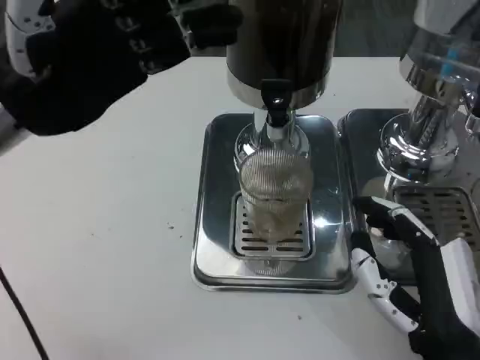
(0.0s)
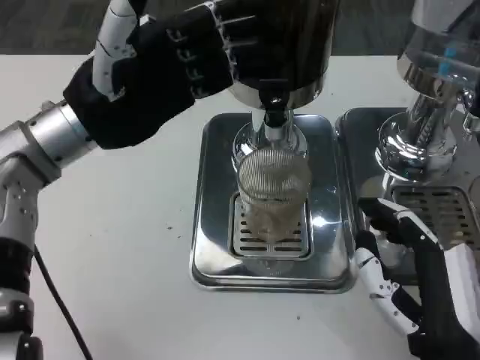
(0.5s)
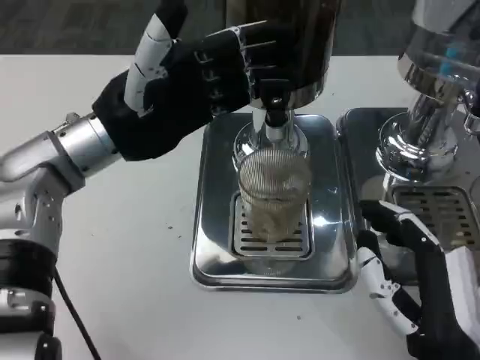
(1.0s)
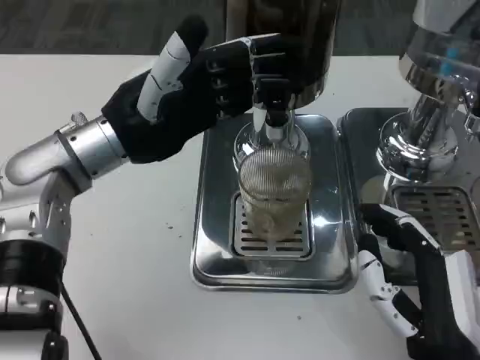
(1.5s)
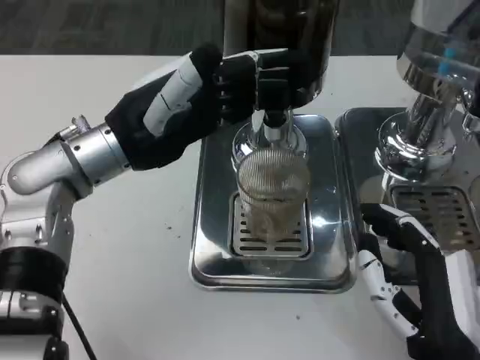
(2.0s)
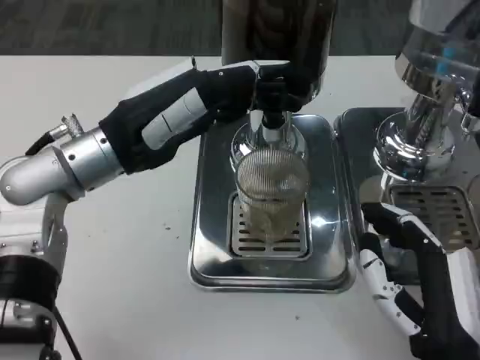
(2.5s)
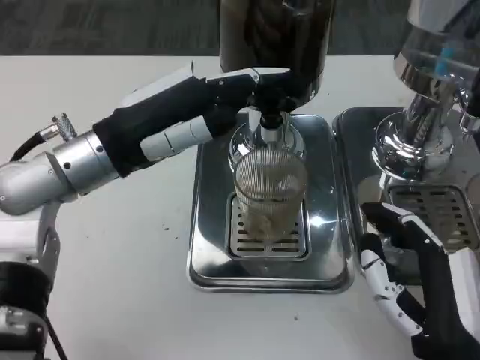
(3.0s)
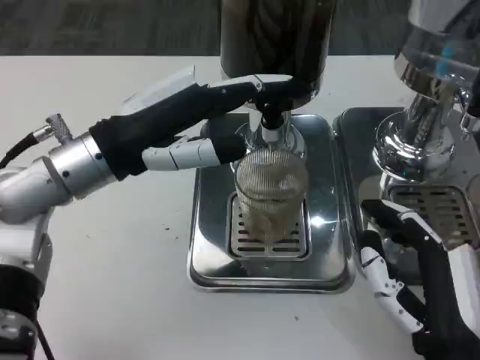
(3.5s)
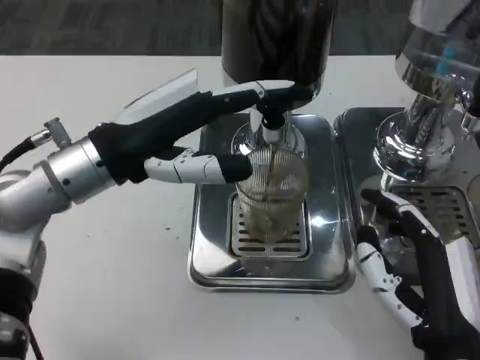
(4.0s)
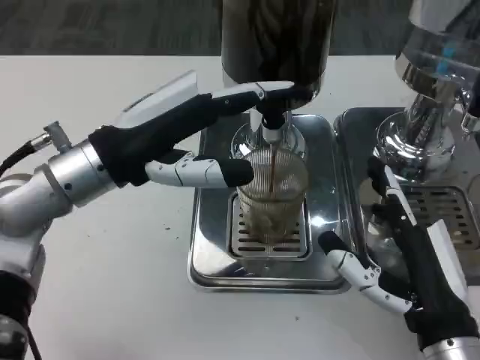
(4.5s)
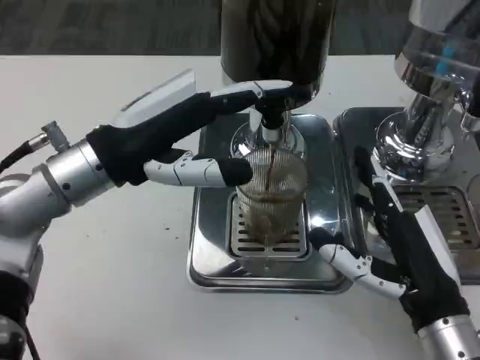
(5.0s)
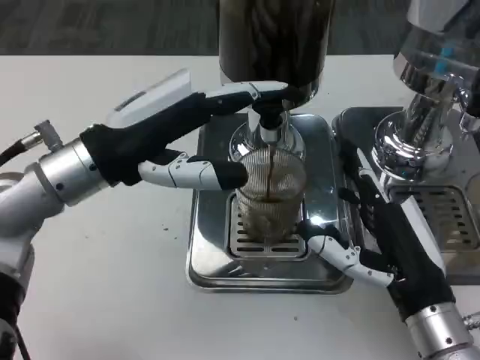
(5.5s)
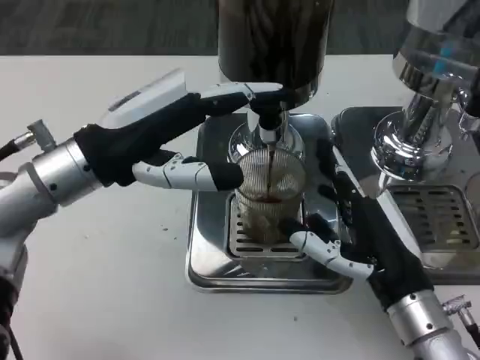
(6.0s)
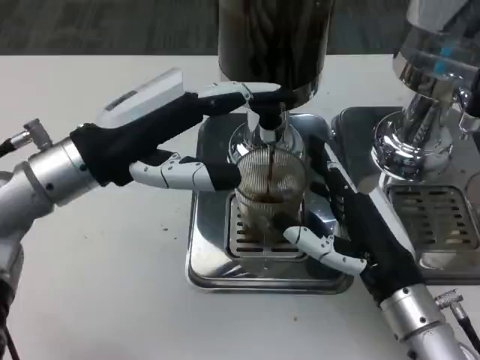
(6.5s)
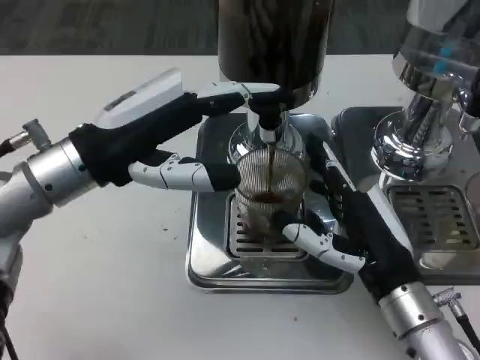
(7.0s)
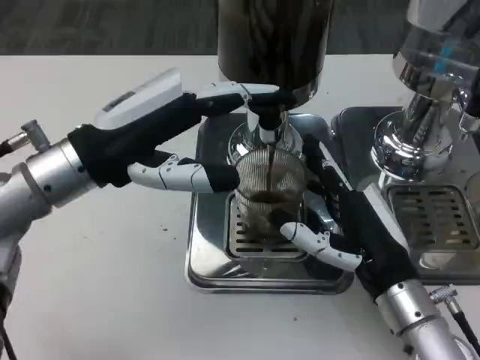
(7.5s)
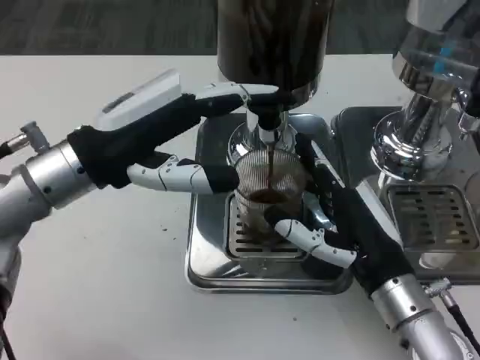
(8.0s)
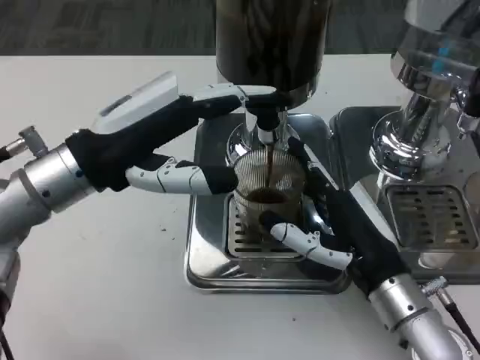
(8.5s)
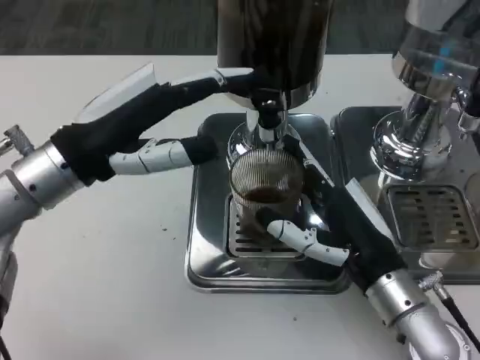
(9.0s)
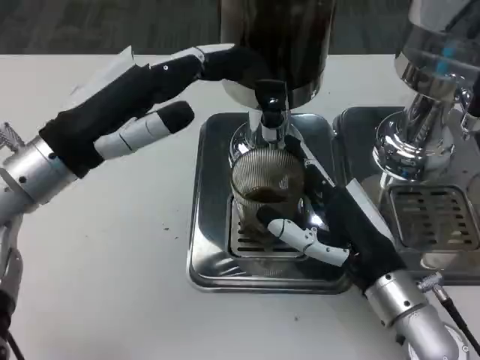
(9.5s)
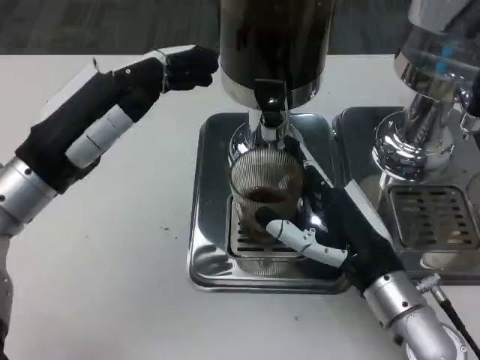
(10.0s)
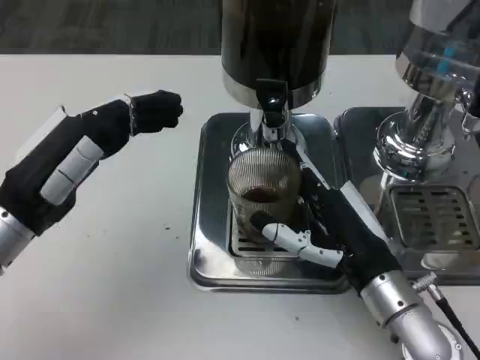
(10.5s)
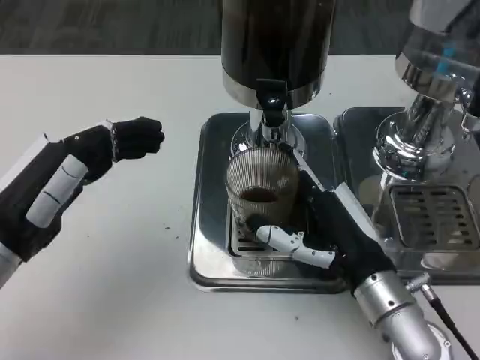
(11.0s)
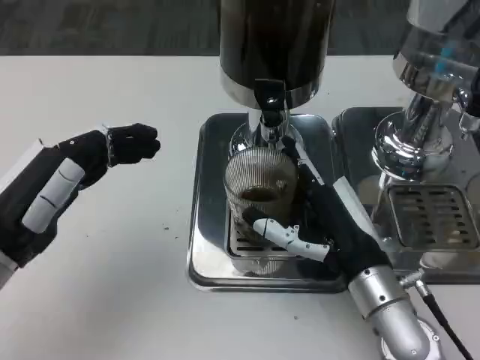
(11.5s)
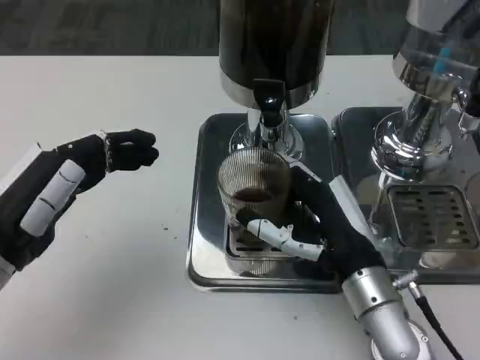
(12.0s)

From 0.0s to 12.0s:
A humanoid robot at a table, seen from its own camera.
Task of the whole recording: Grasp the cup under the faucet to collect the drink, then remove the cup.
From 0.0s to 2.0s: The left hand moves to the right and downward, roughly 10 cm.
From 4.0s to 6.0s: The right hand goes about 5 cm forward.
From 6.0s to 8.0s: The hands make only small movements.
From 10.0s to 12.0s: The left hand shifts approximately 5 cm backward.

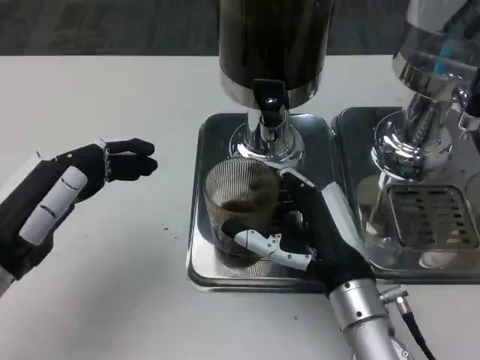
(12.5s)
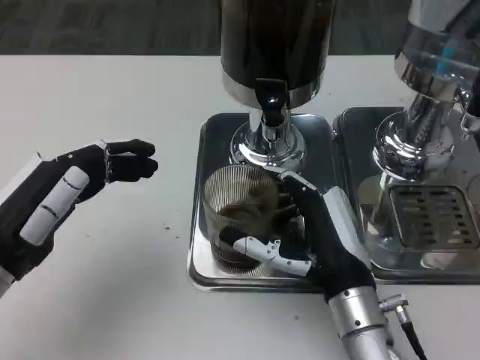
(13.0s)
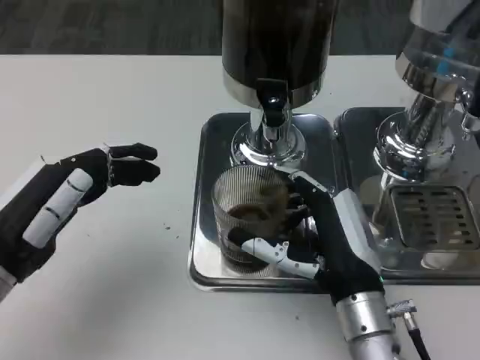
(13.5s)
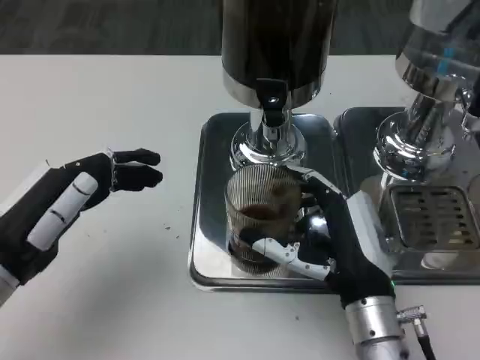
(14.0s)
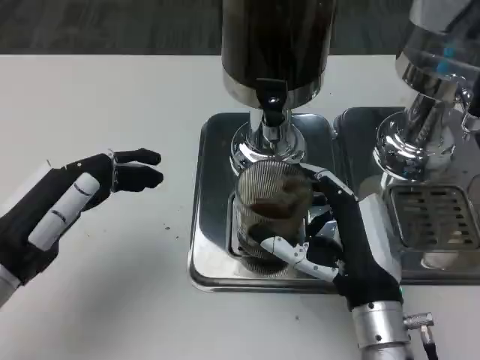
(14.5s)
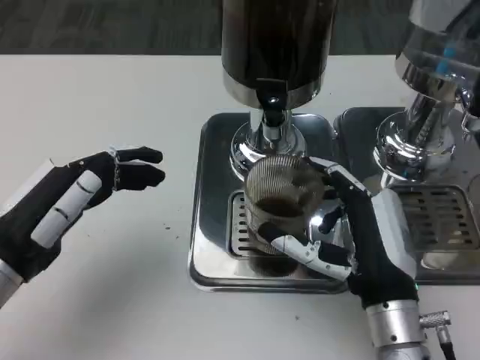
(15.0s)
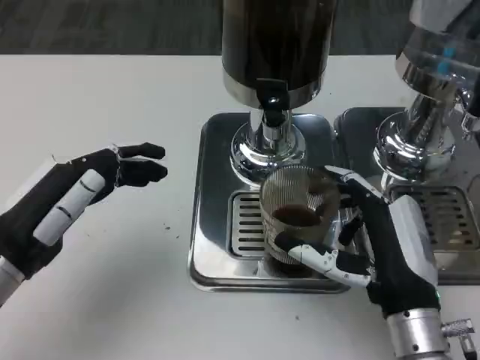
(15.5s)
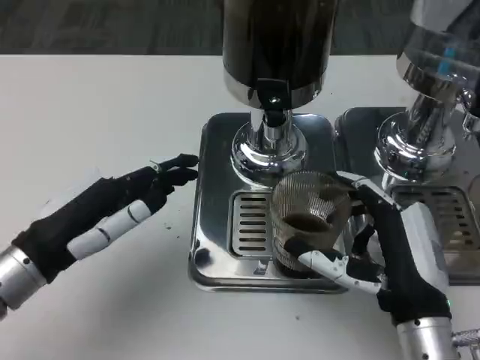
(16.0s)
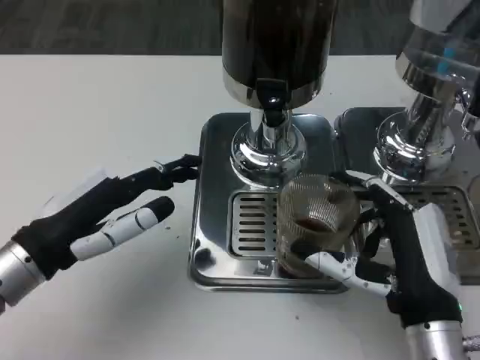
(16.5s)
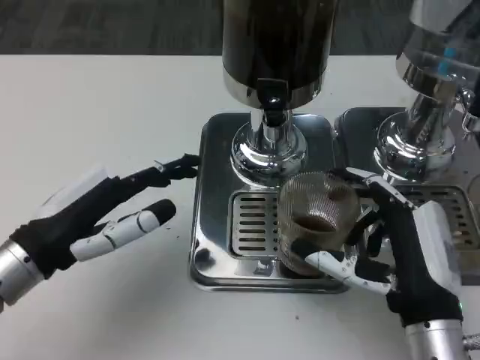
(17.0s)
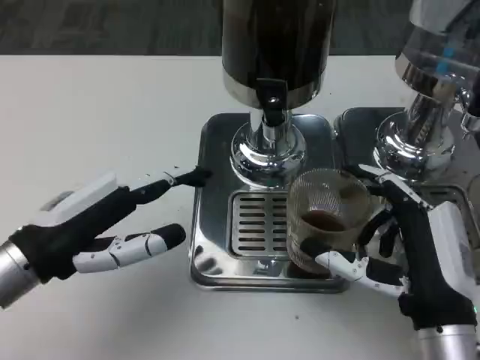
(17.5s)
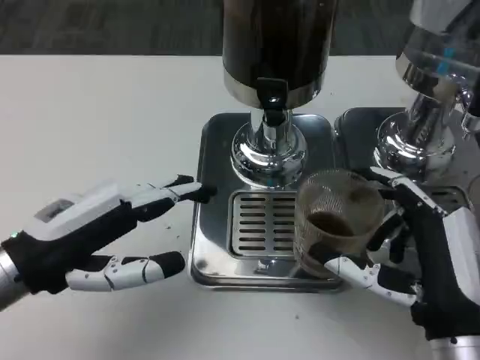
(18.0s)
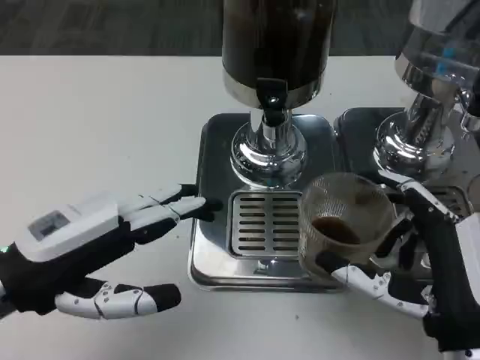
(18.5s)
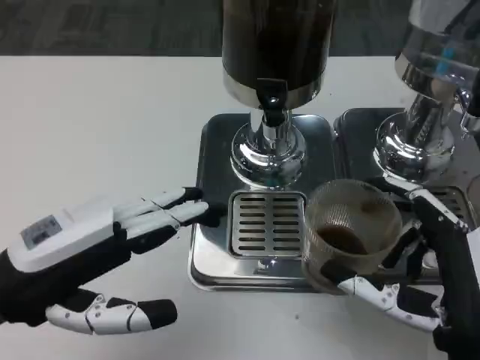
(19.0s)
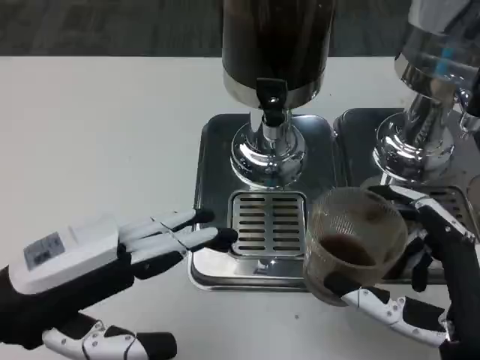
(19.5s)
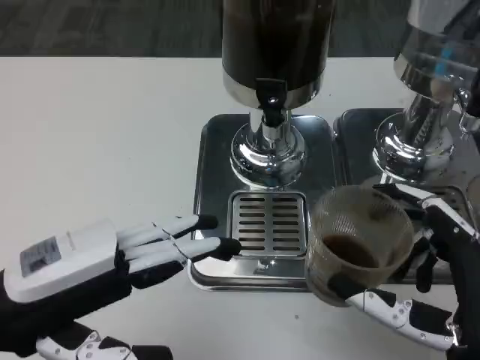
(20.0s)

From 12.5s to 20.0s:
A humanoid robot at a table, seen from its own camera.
Task of the whole recording: Grasp the cup under the faucet to collect the drink, then remove the cup.
From 14.5s to 16.5s: The right hand changes place by roughly 5 cm.
From 18.0s to 20.0s: The right hand ends up roughly 5 cm from where it was.

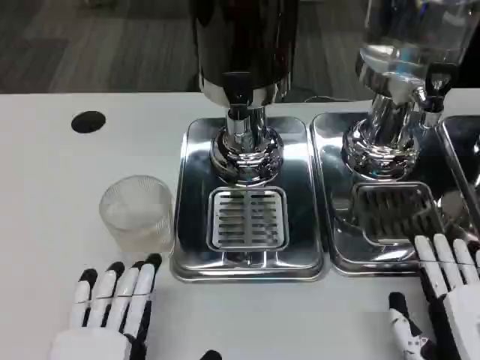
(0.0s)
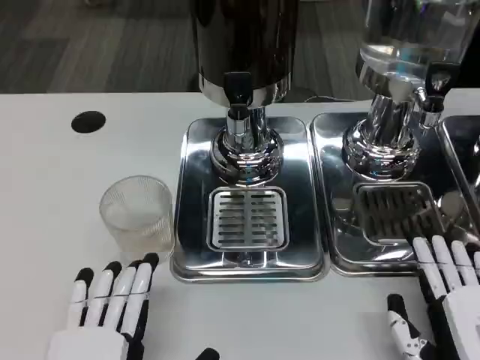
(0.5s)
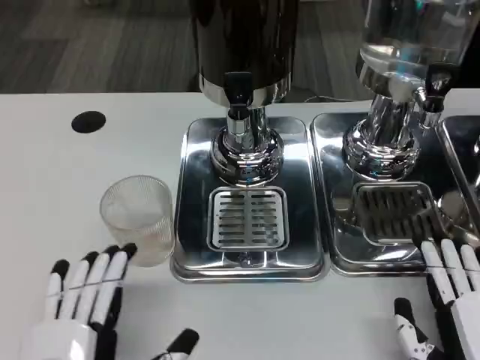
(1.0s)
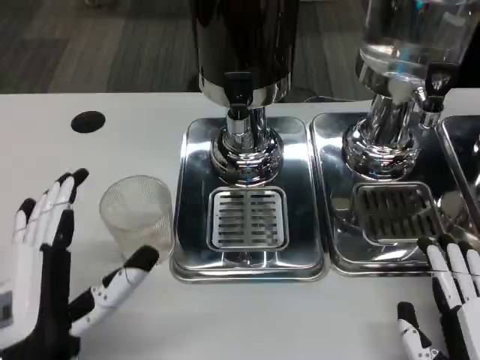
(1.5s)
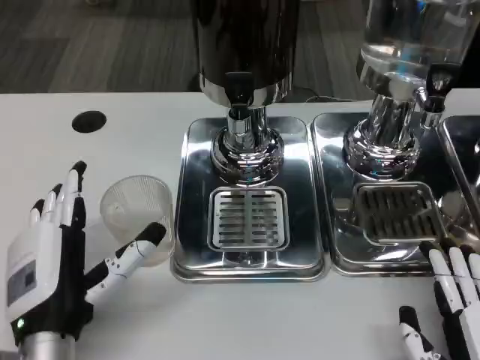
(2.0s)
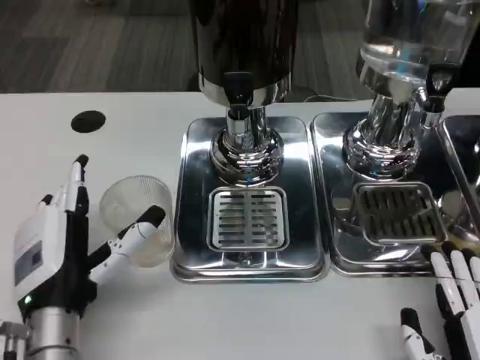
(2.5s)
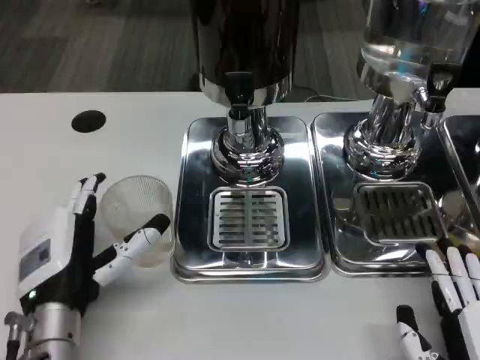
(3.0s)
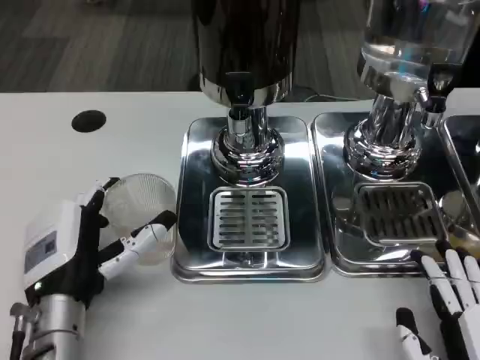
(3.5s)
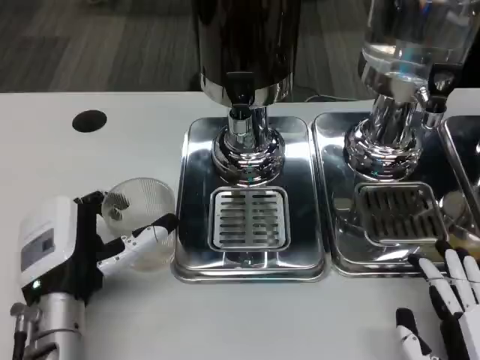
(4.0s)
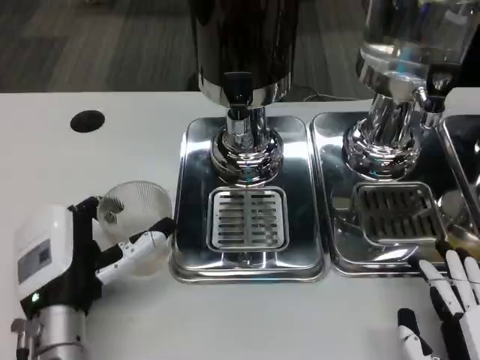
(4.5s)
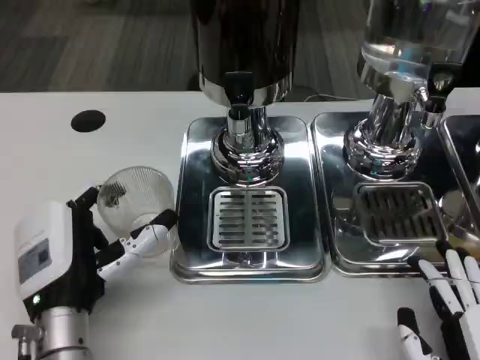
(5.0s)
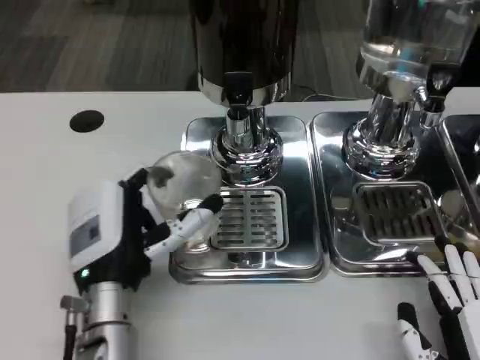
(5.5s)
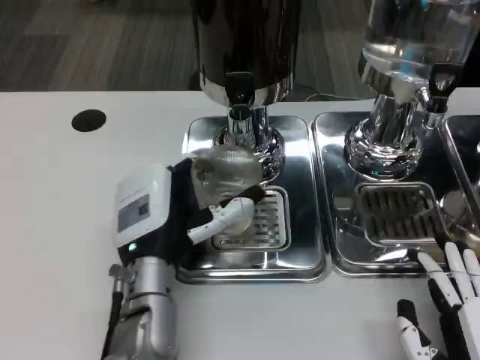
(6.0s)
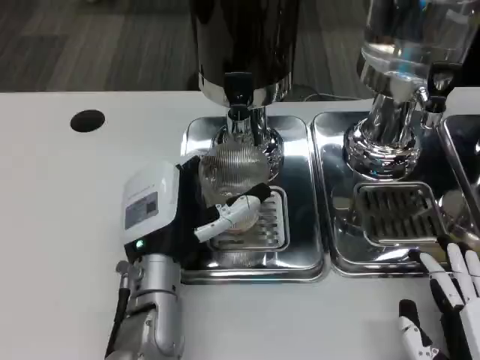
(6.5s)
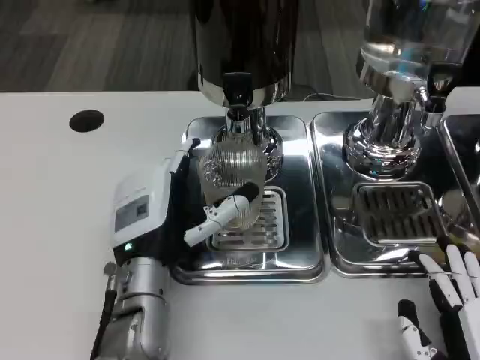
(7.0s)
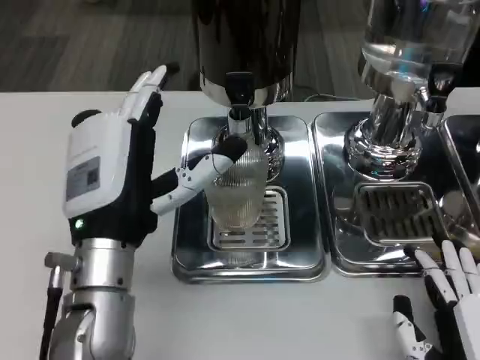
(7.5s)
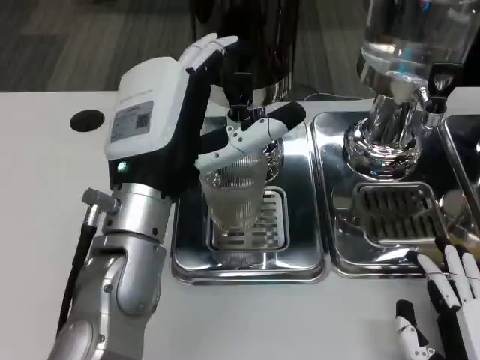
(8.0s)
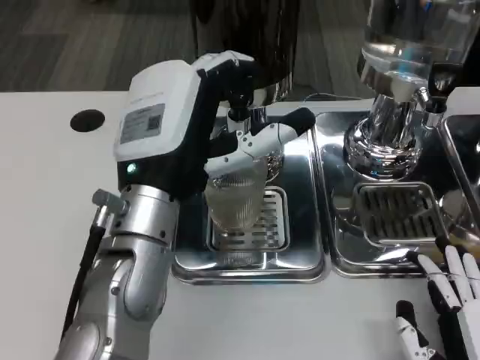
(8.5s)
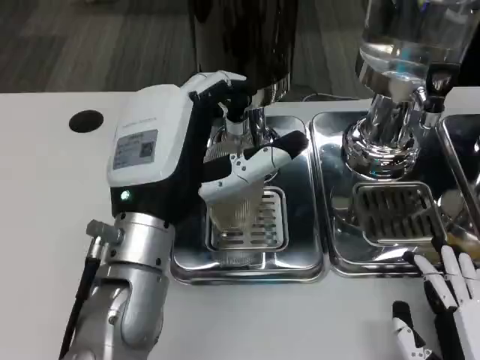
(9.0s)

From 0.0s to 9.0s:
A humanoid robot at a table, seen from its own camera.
Task of the whole recording: Grasp the cup under the faucet to collect the drink, then remove the cup.
From 0.0s to 2.0s: The left hand shifts about 10 cm forward.
From 2.0s to 4.5s: The hands move only a little.
From 4.5s to 7.0s: The left hand goes approximately 5 cm to the right.
From 7.0s to 9.0s: The left hand is displaced upward by about 10 cm.
